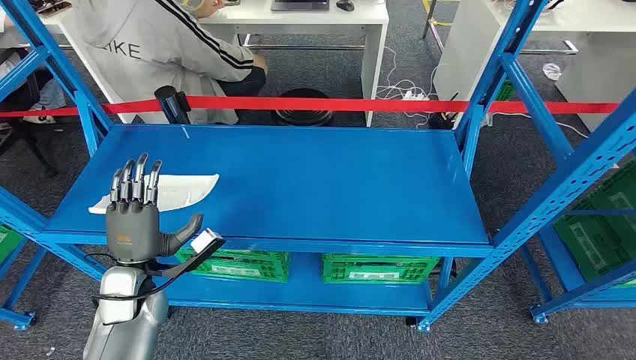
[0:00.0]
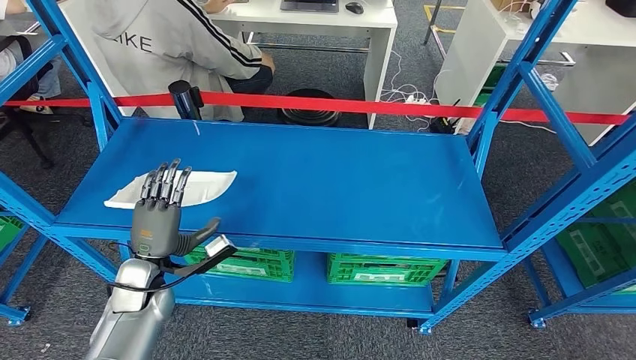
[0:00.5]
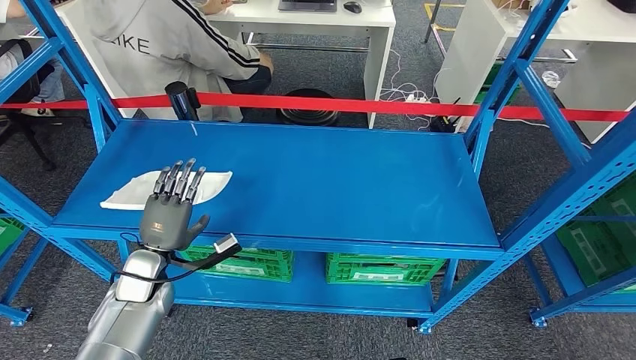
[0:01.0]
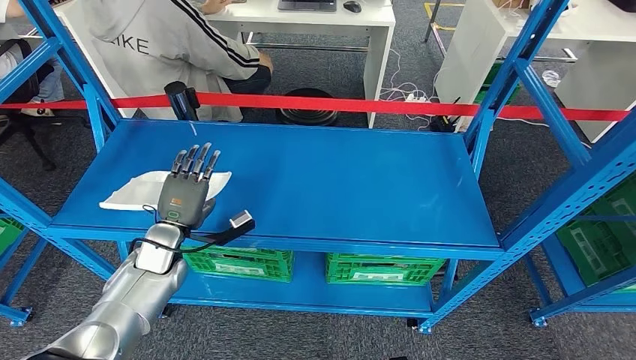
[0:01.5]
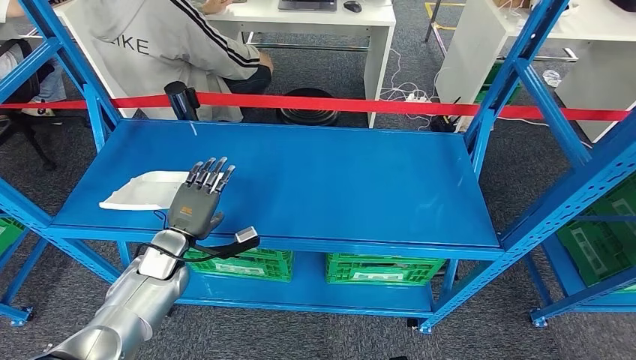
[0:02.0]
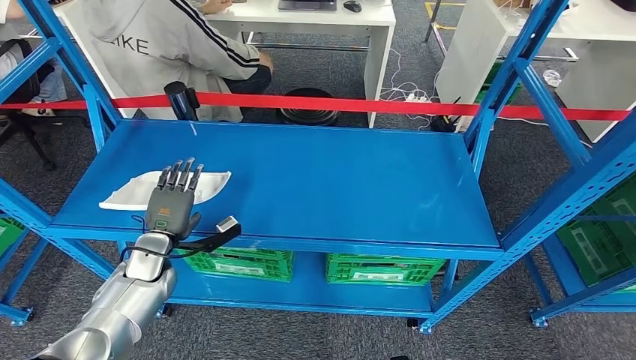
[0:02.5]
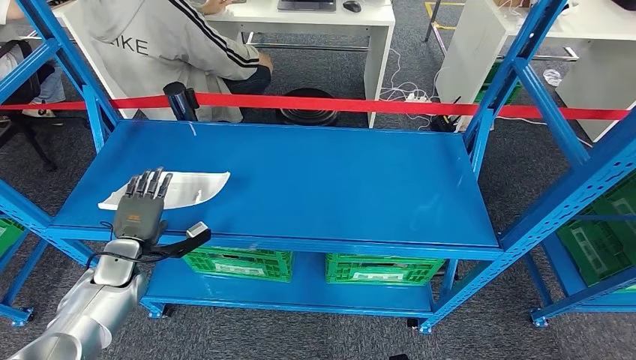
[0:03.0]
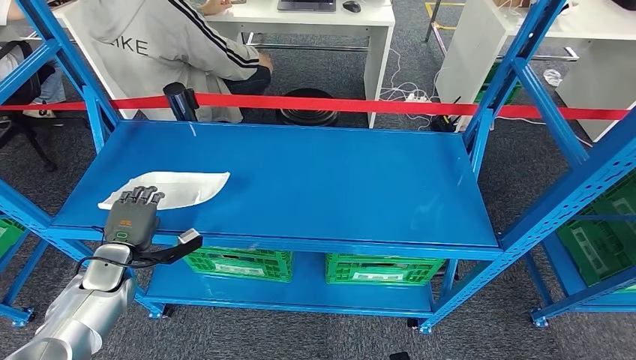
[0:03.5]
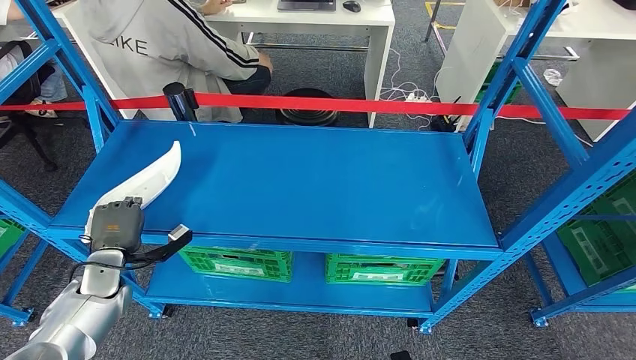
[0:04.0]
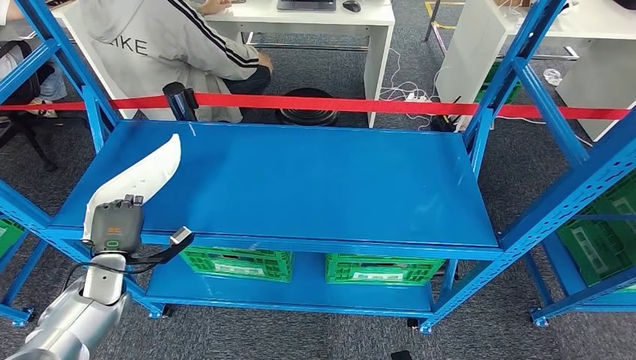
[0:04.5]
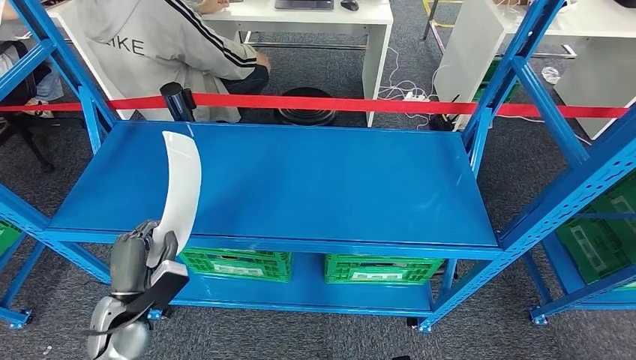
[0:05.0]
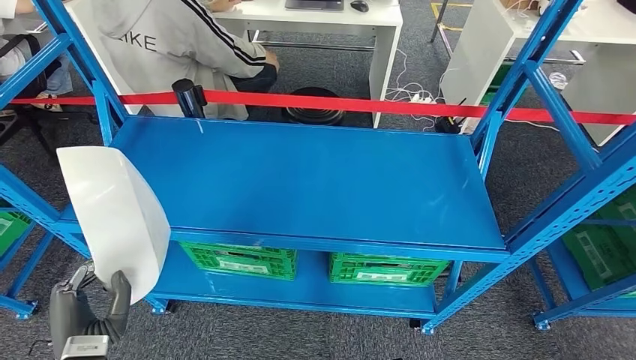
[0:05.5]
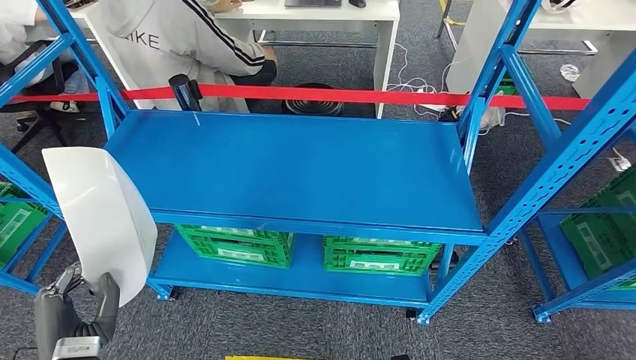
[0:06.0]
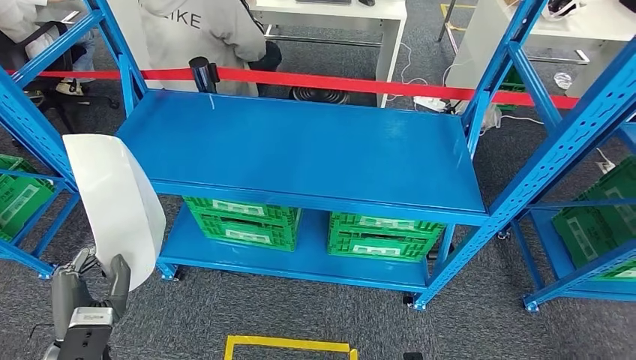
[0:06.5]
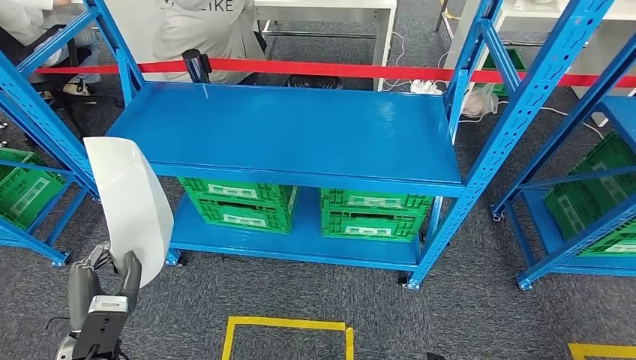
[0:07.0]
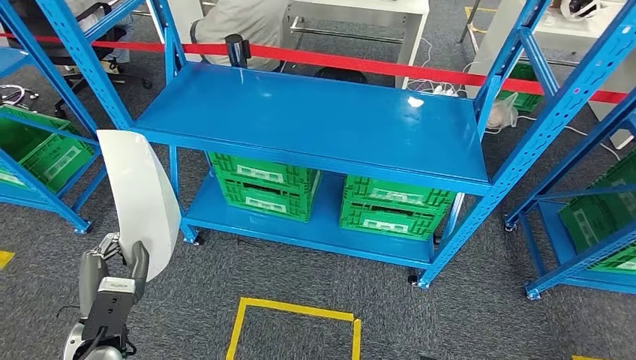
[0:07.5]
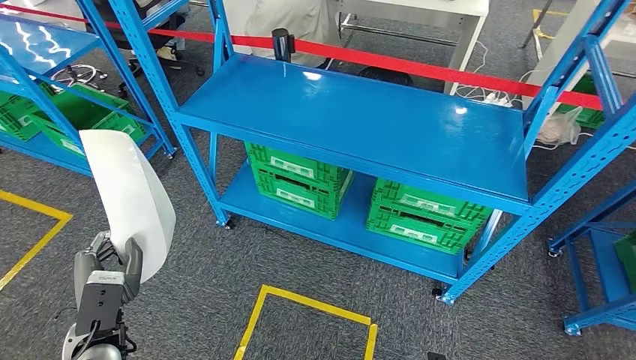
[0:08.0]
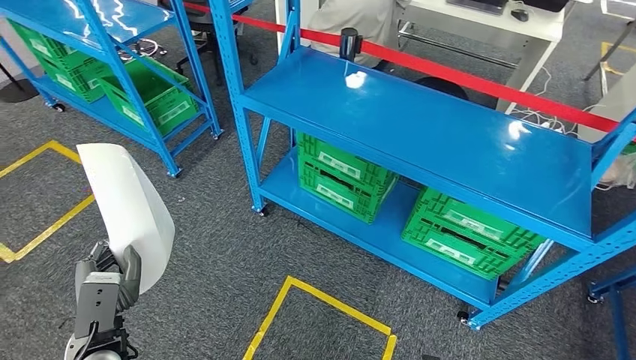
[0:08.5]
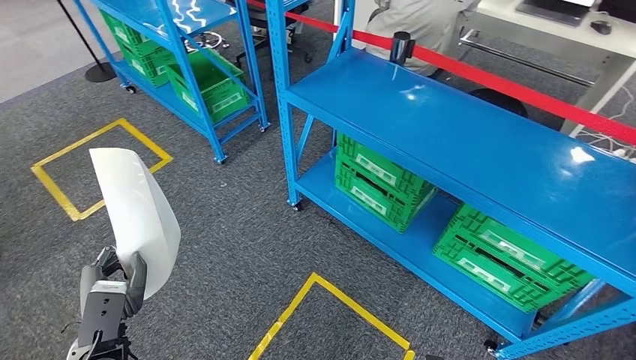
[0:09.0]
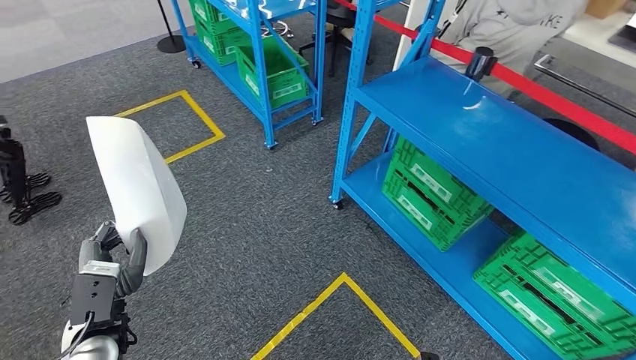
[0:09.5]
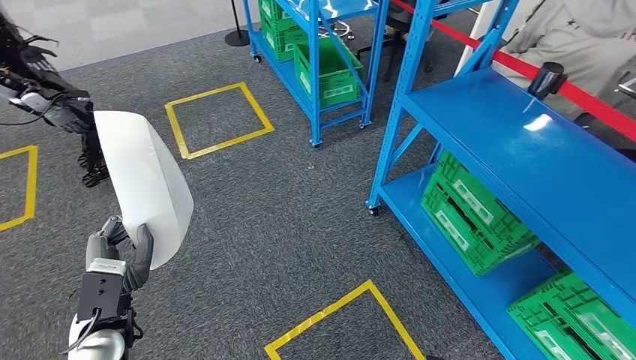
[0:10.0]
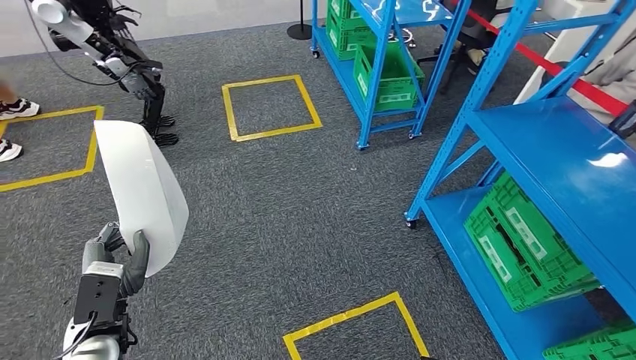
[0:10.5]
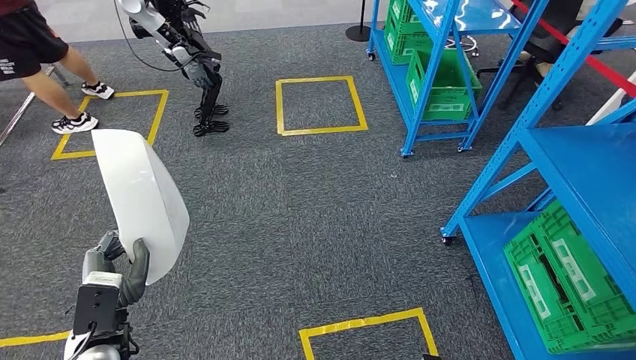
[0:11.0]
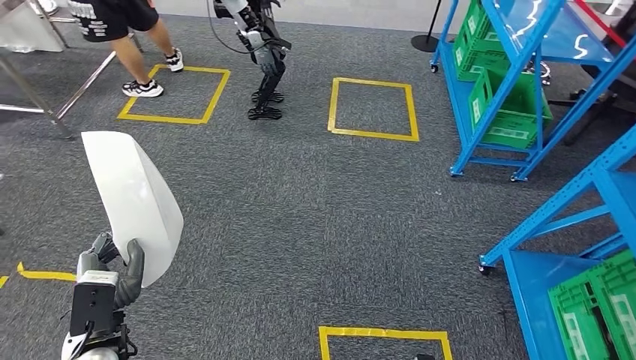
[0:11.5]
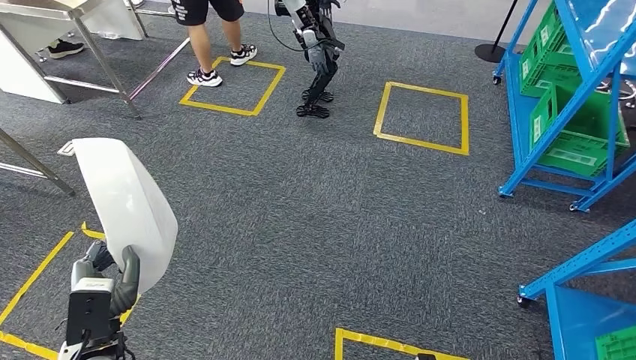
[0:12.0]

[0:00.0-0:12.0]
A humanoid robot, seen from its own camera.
Step, 0:00.0 to 0:06.5: Pick up the large material from the shelf.
0:02.0 to 0:04.0: The left hand shifts approximately 10 cm to the left.

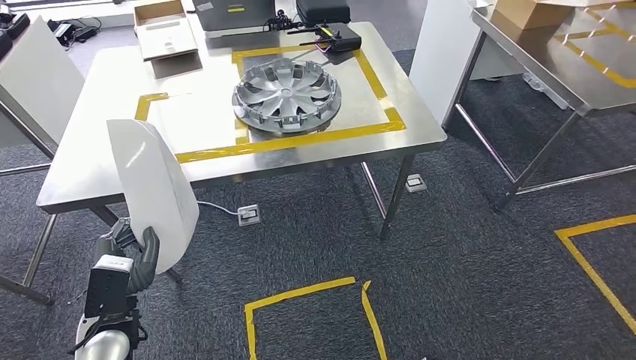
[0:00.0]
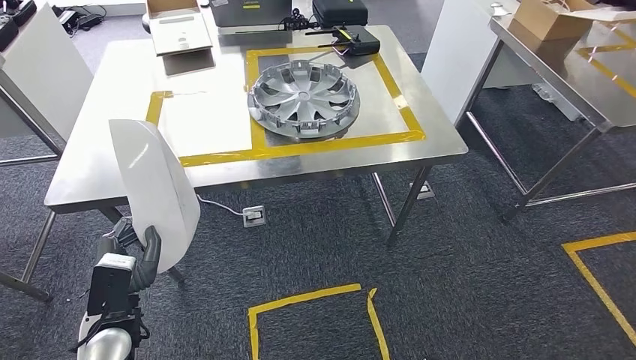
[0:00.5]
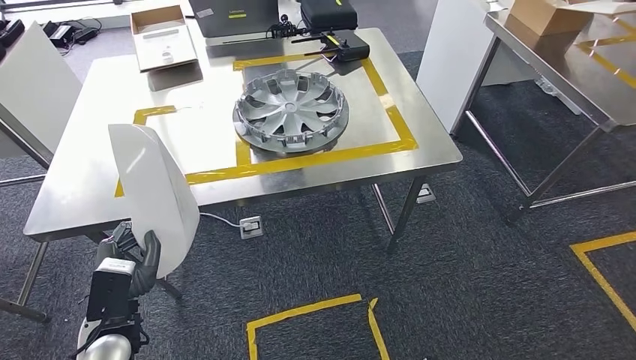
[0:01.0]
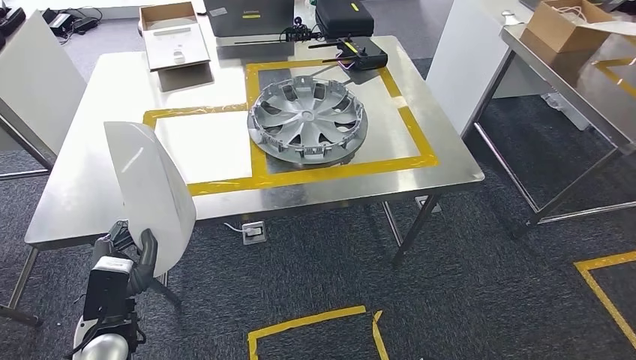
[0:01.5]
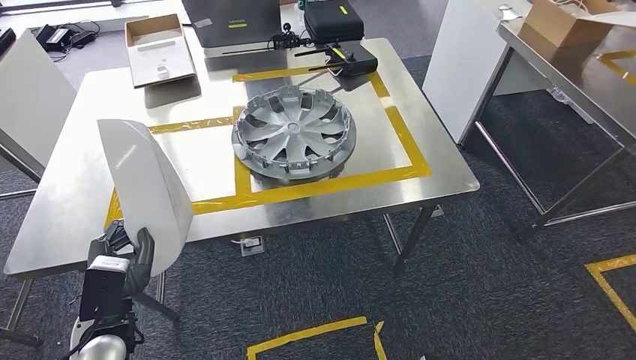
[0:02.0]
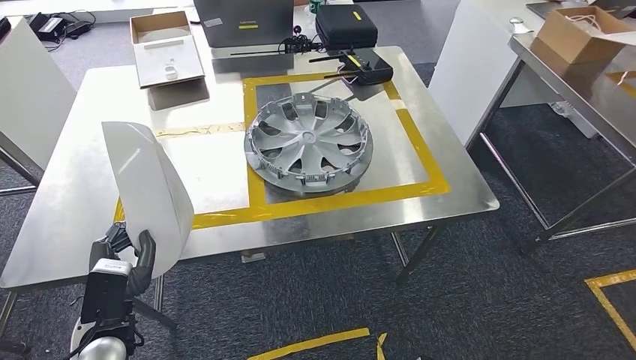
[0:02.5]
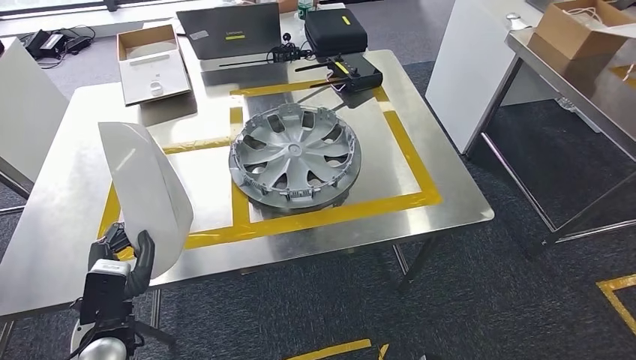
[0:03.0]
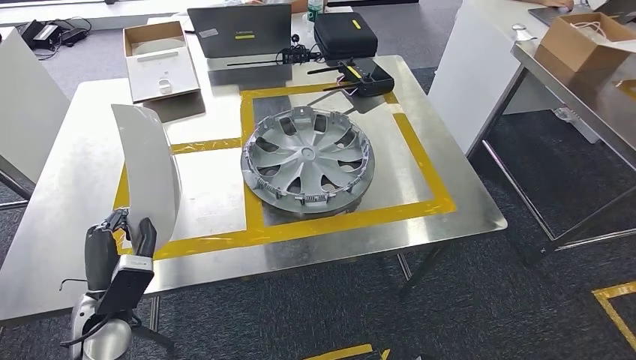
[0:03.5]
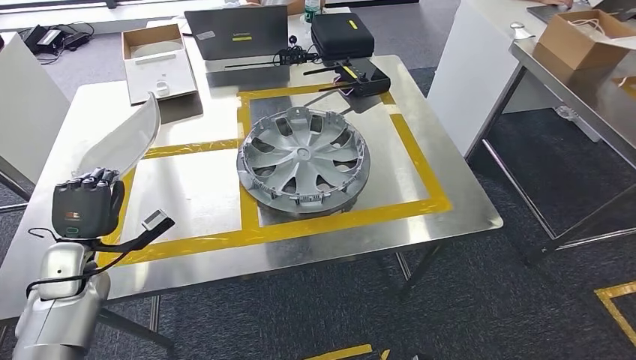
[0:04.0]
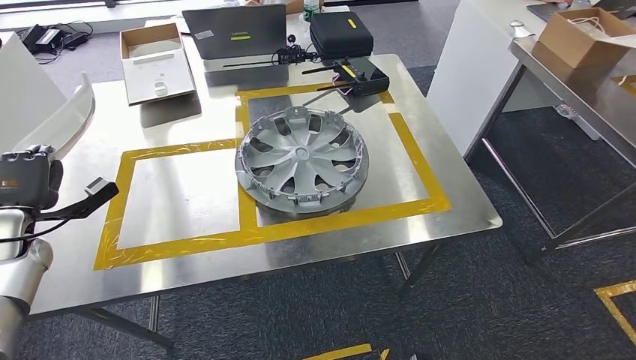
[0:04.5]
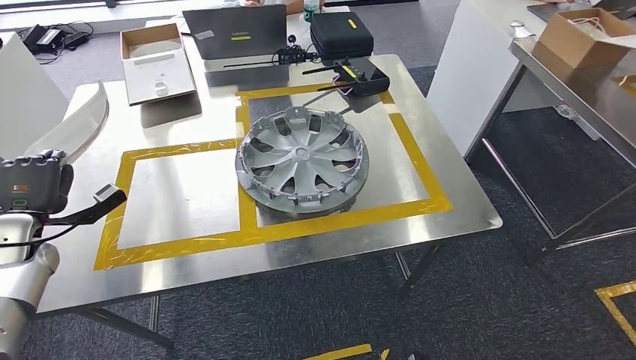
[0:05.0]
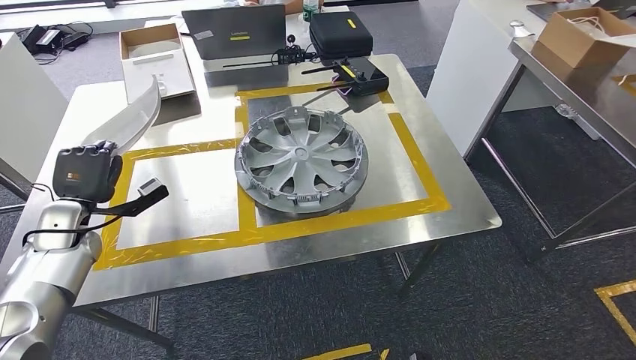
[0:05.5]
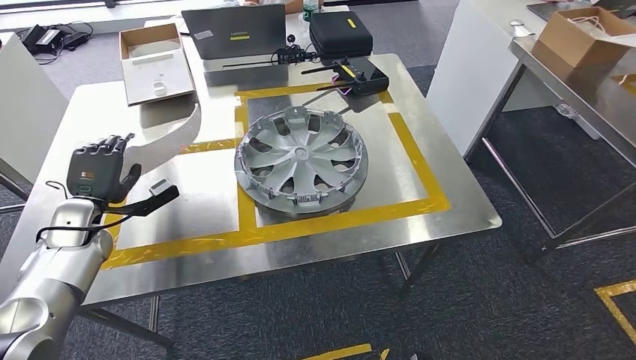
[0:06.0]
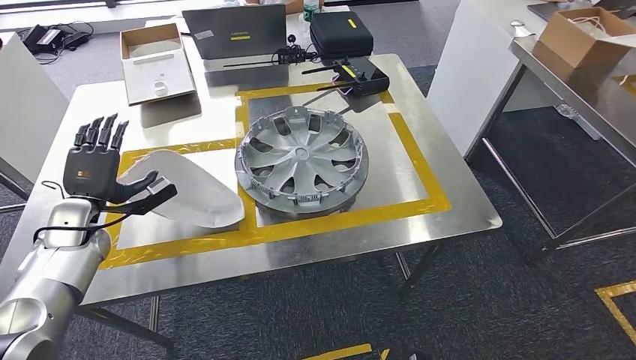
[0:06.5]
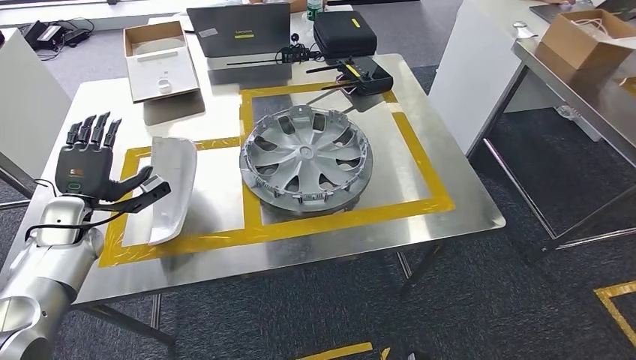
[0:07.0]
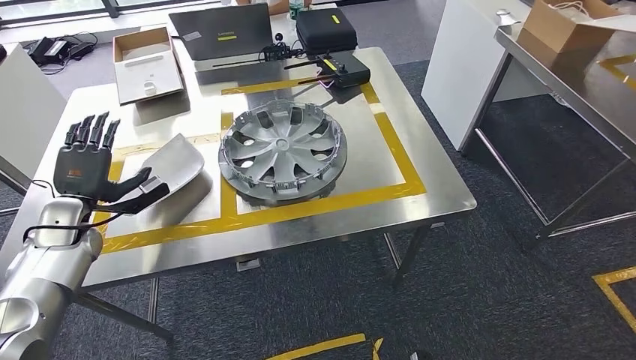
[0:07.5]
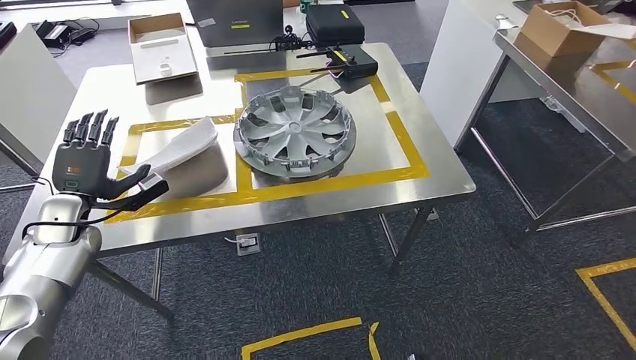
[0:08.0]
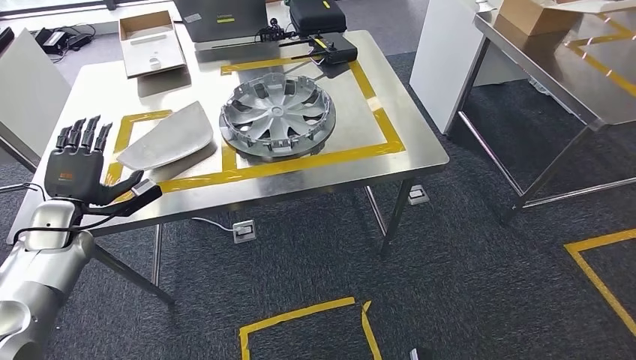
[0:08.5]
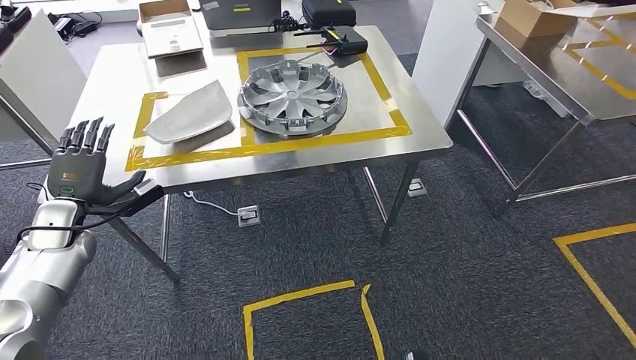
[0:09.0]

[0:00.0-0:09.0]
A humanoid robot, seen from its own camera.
Step, 0:00.0 to 0:02.0: Move the large material to the workbench.
Step, 0:03.0 to 0:08.5: Insert the large material into the corresponding slot on the workbench.
